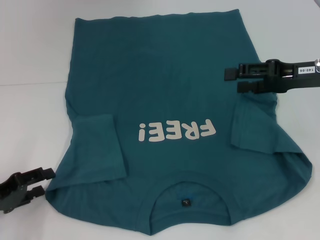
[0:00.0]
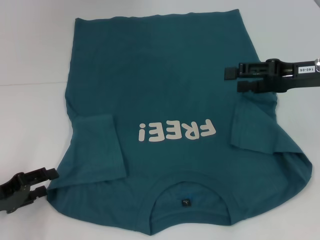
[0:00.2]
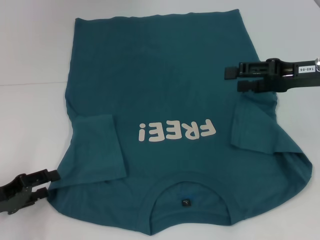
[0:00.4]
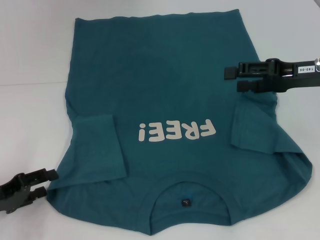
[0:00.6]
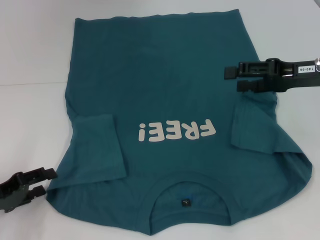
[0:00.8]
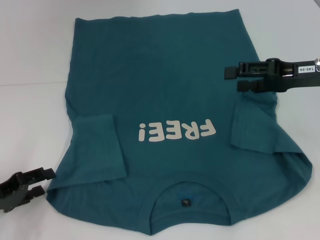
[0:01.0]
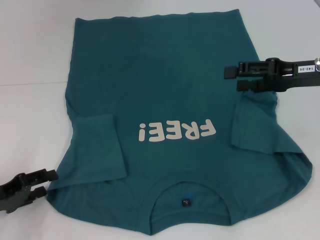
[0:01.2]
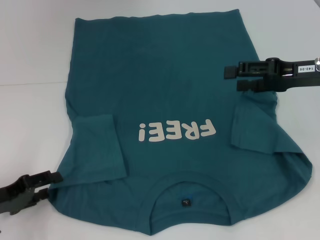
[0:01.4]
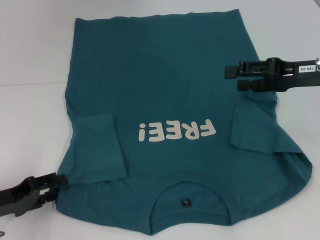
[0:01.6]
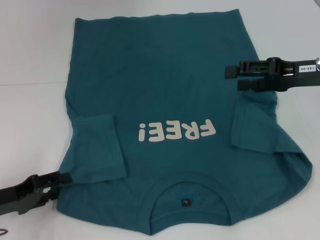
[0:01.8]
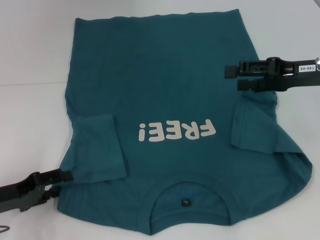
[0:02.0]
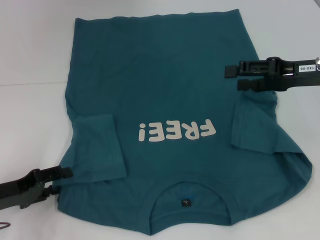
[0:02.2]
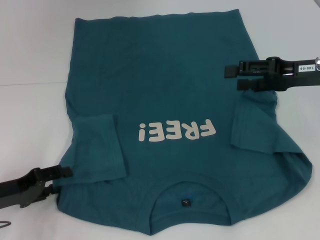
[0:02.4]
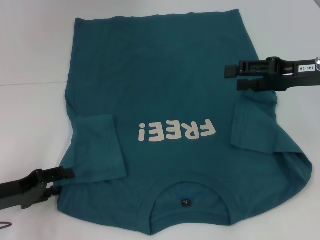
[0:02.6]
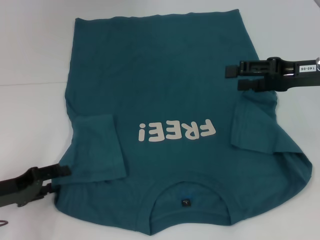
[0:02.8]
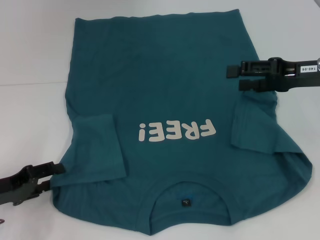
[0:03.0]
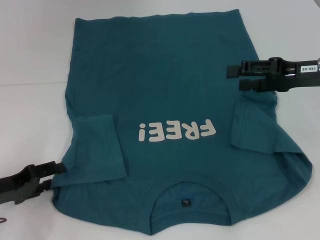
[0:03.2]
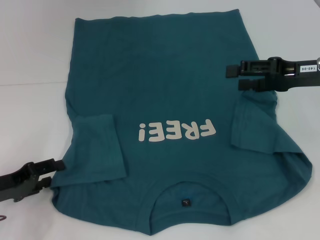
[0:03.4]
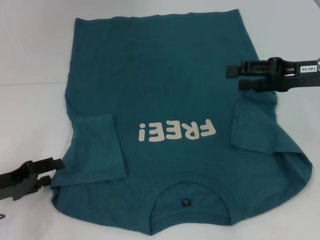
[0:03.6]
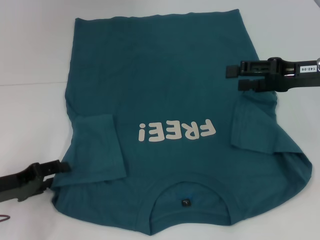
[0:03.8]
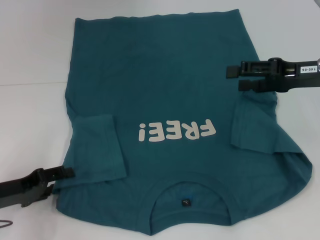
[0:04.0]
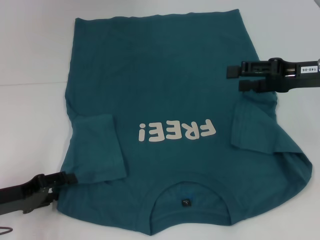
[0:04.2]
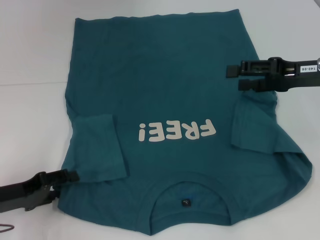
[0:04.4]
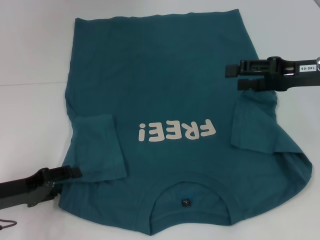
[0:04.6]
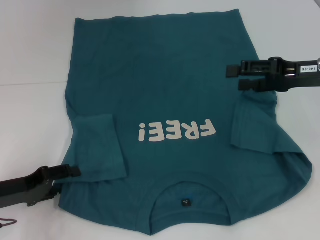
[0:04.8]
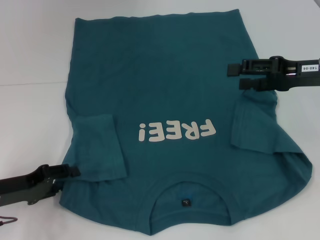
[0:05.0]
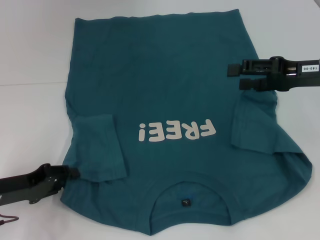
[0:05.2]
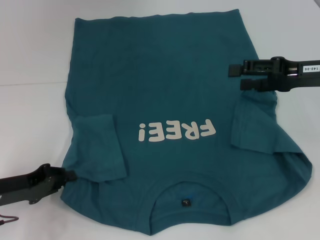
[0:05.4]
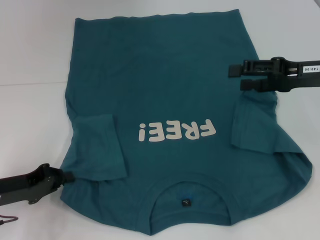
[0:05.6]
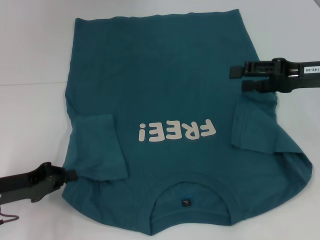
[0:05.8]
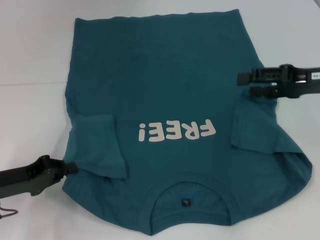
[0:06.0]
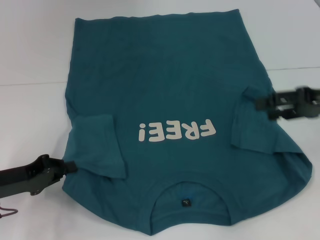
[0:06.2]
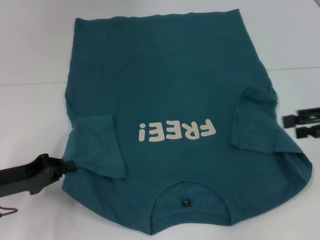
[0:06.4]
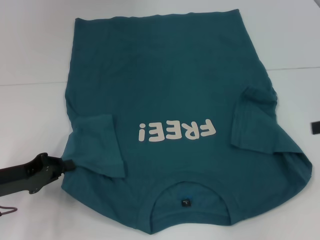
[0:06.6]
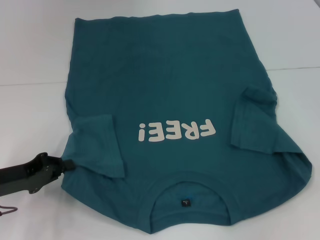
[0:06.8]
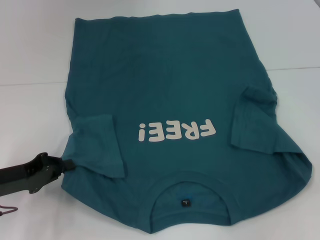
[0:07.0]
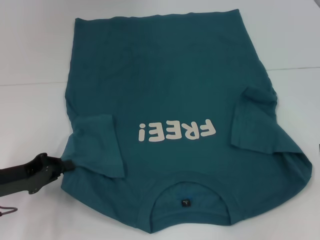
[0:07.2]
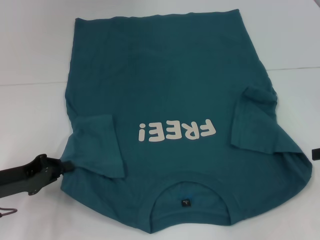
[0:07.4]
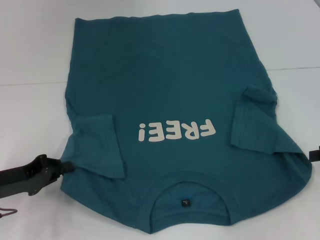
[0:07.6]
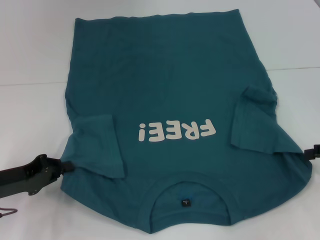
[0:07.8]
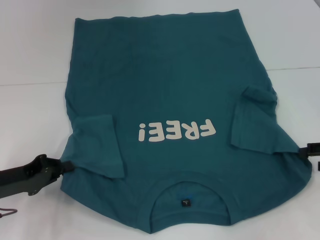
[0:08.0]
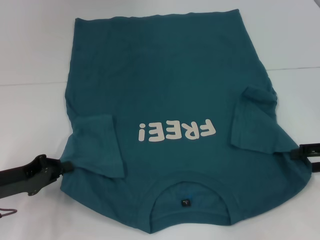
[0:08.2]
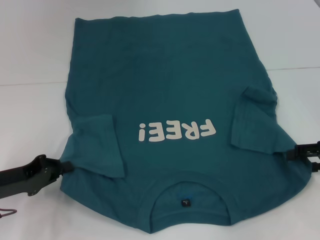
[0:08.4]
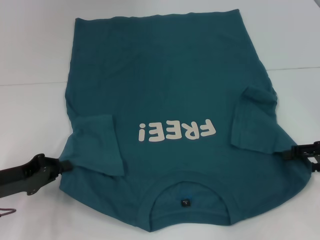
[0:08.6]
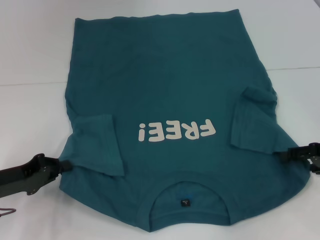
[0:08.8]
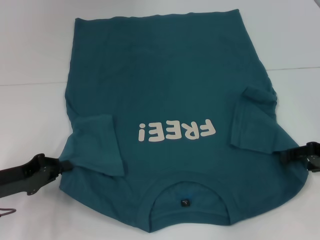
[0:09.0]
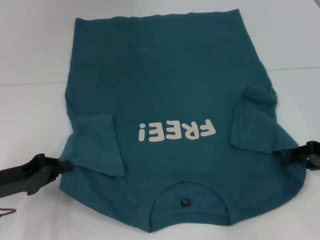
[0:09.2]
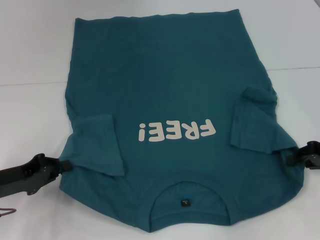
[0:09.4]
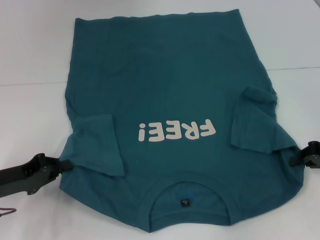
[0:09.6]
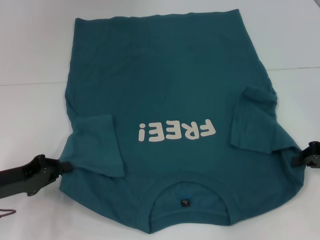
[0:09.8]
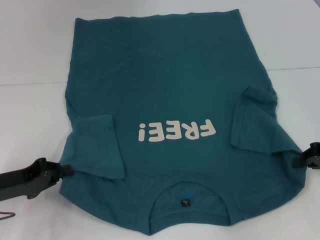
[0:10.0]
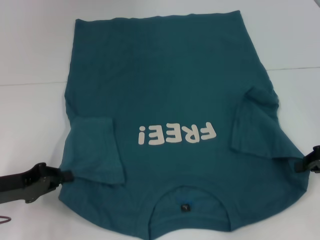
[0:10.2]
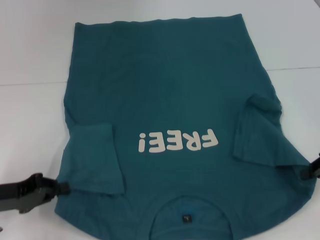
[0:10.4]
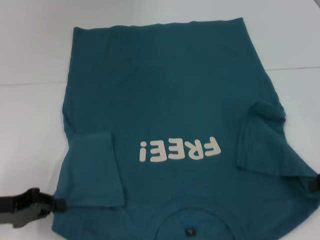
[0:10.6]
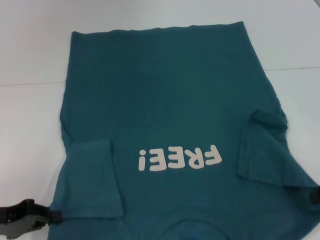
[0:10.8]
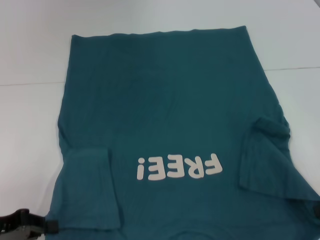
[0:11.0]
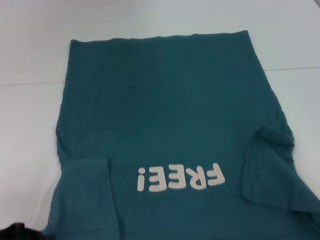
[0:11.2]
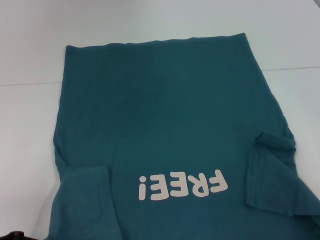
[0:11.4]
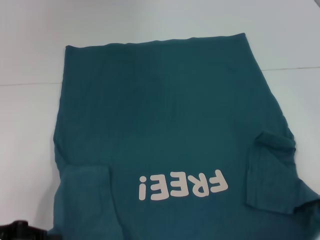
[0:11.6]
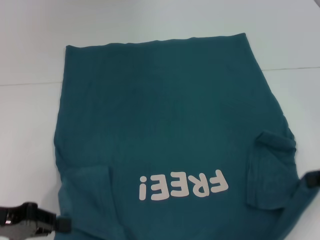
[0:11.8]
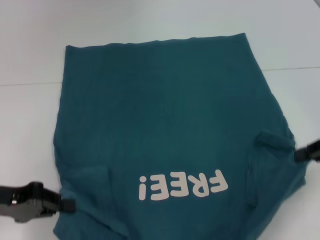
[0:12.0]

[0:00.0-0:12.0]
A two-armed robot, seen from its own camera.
Step, 0:00.0 to 0:06.2: Grab the bottom left corner with your left hand.
Step, 0:06.4 to 0:10.0: Grab the bottom right corner with your right hand.
0:00.0 to 0:04.4: The grippers move only a little.
0:04.4 to 0:06.0: The left gripper closes up.
0:06.0 to 0:07.6: The right gripper shifts some 15 cm to the right, backward and downward.
0:07.6 to 0:09.0: The right gripper moves some 5 cm.
0:09.0 to 0:10.4: The right gripper closes its fingers.

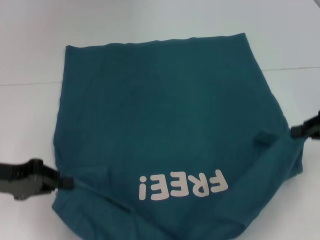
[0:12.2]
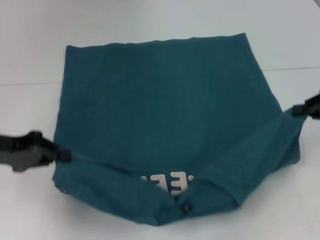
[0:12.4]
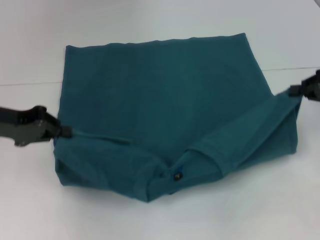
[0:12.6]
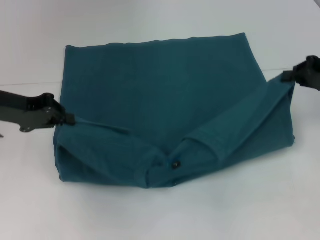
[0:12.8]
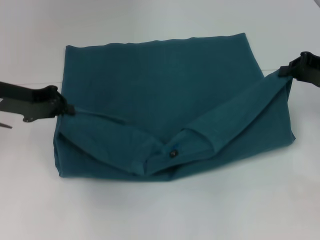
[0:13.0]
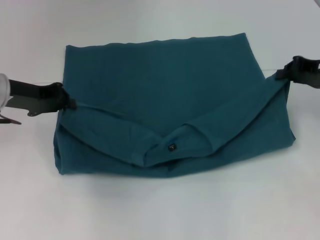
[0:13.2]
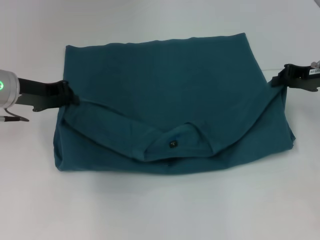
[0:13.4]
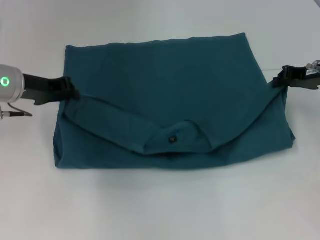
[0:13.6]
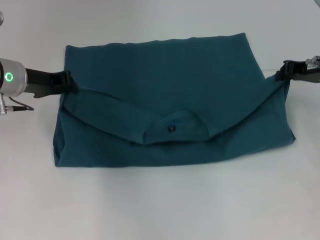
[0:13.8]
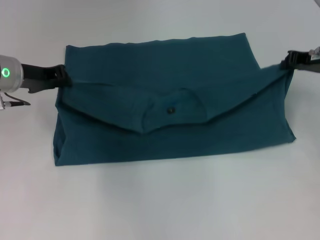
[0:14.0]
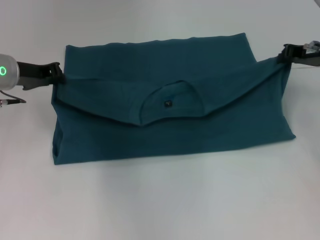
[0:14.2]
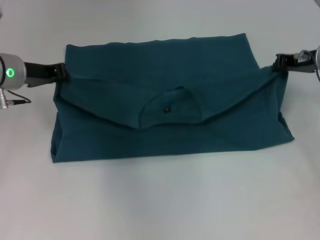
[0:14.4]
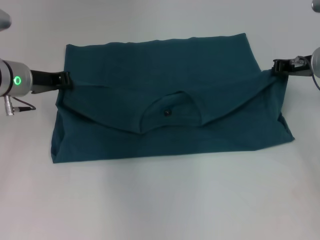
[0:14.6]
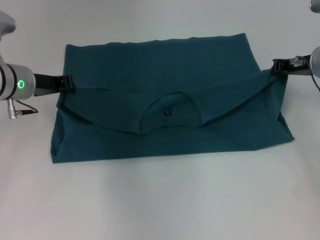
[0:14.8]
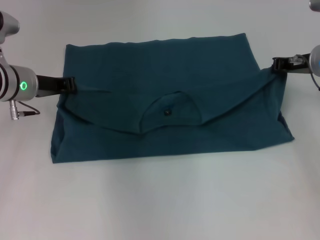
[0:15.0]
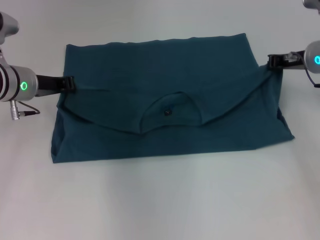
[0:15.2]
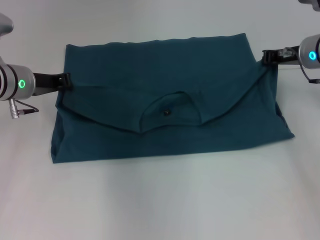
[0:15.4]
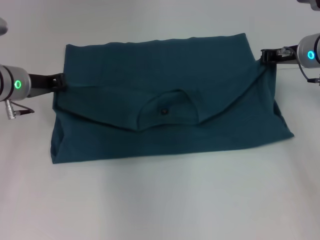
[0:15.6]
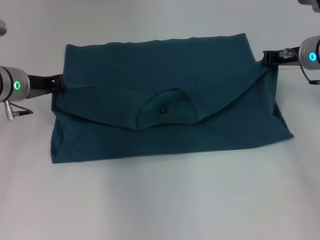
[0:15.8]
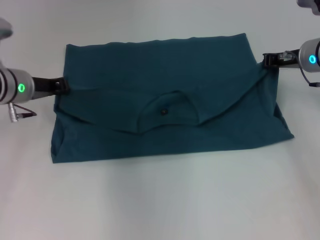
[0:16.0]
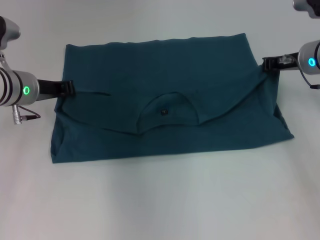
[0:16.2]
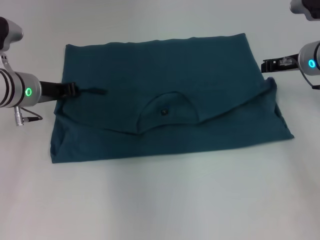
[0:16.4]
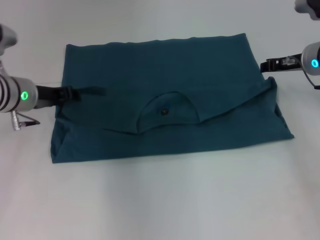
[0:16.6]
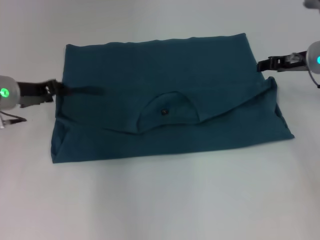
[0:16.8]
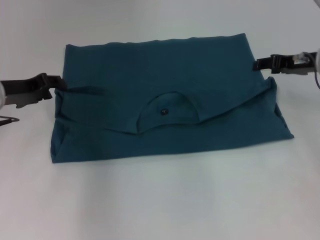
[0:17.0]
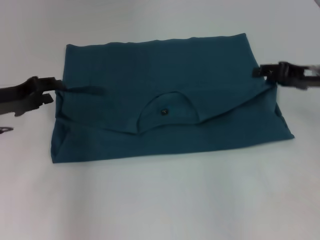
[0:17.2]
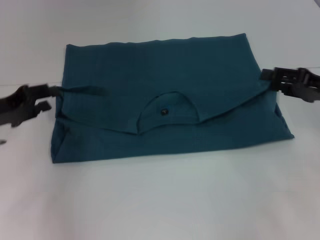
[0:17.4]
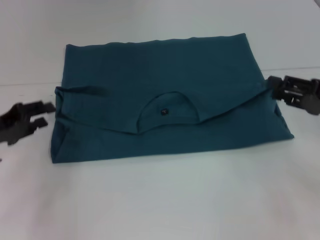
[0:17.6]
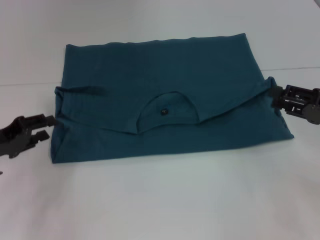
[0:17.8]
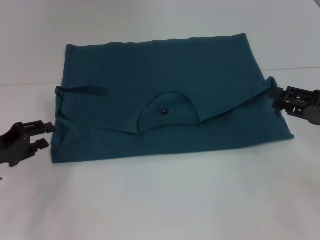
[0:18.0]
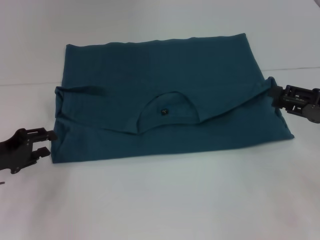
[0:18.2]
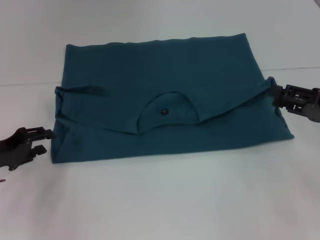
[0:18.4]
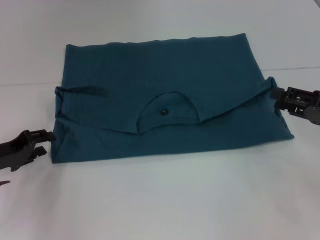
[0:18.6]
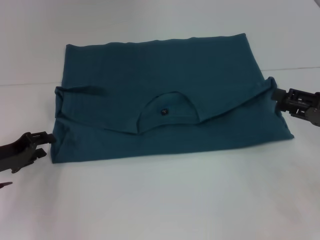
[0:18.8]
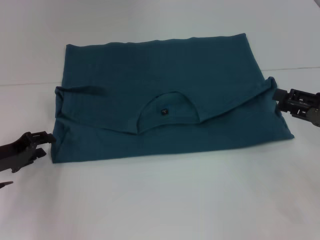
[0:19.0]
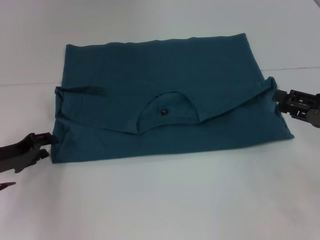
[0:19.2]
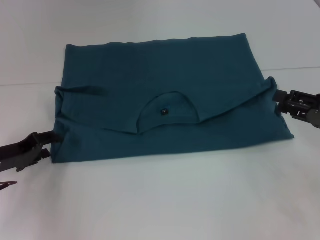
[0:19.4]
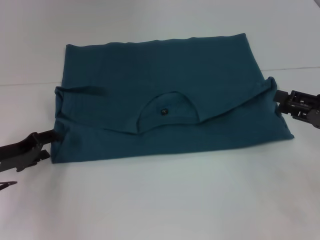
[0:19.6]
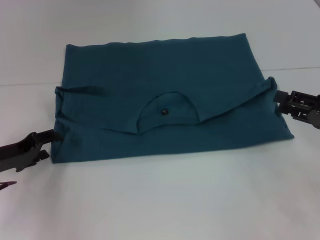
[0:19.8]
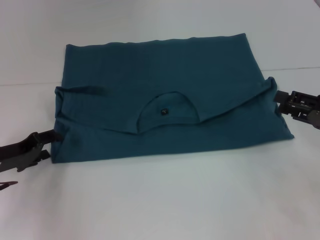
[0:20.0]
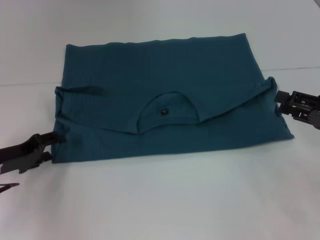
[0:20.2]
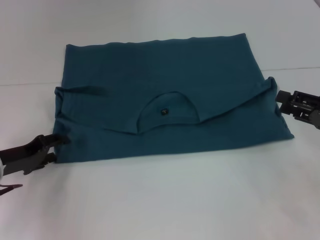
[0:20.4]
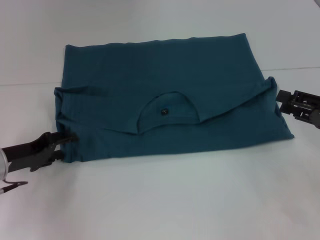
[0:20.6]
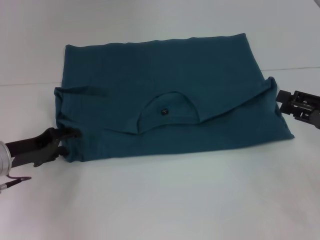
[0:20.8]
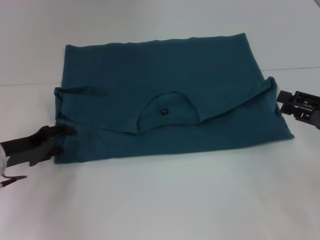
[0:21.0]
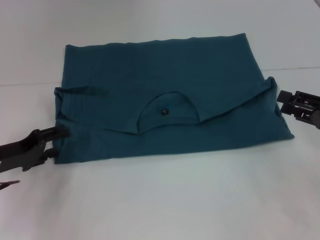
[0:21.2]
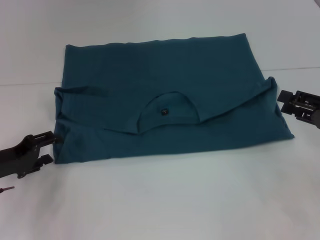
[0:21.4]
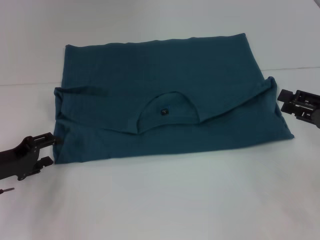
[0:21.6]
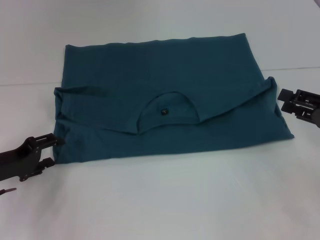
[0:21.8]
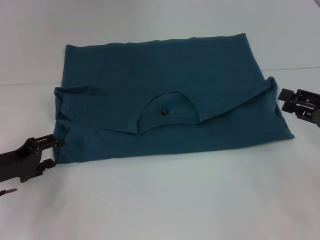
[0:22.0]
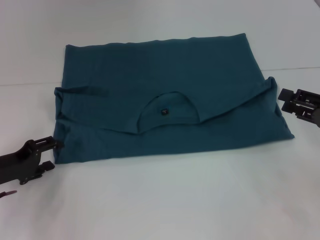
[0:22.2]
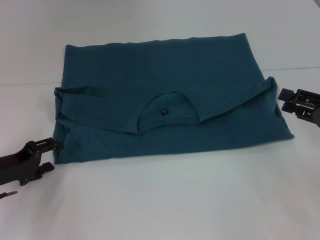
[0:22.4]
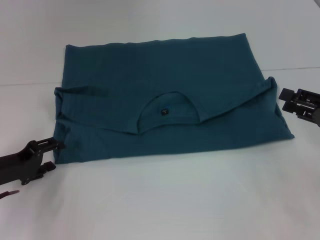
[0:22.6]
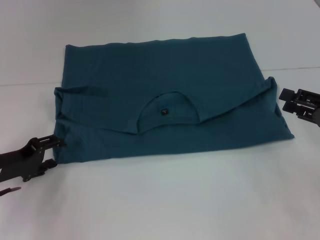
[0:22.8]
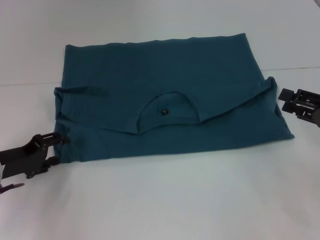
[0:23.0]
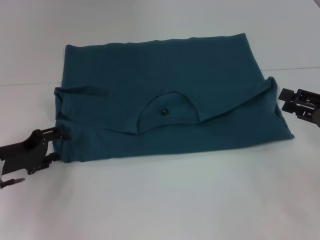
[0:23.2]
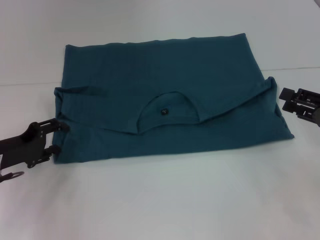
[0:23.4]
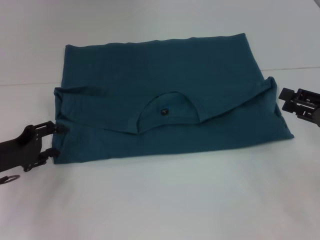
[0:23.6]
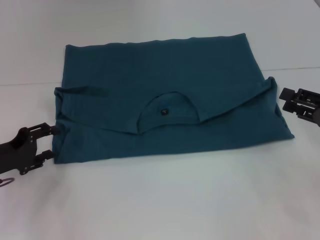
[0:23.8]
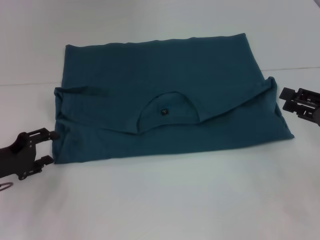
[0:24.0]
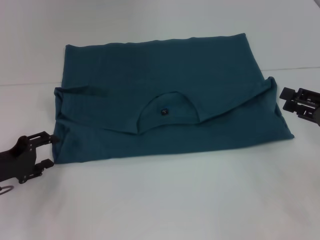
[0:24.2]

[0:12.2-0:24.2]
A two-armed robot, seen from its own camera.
Step, 0:12.2 to 0:16.4: Fold the clothes to the left.
Step, 0:12.2 to 0:16.4: Fold the clothes to the right.
0:12.2 to 0:13.8: The left gripper shifts approximately 15 cm forward and to the right, while the right gripper moves forward, roughly 10 cm.
0:13.8 to 0:15.2: The grippers move only a little.
0:15.2 to 0:16.6: The left gripper opens.
0:16.6 to 0:18.2: The right gripper is displaced backward and to the right by roughly 15 cm, and opens up; the left gripper shifts about 15 cm backward and to the left.
0:18.2 to 0:24.2: The grippers move only a little.
